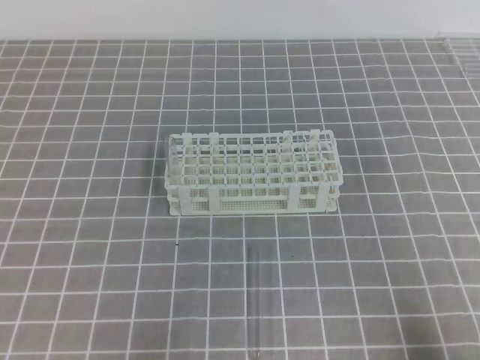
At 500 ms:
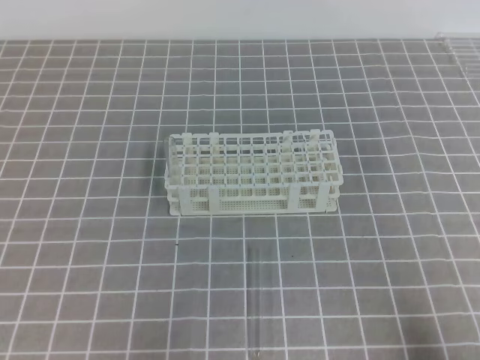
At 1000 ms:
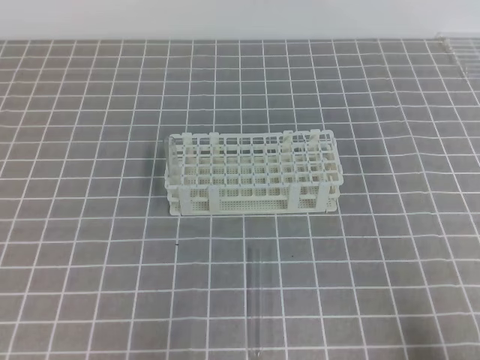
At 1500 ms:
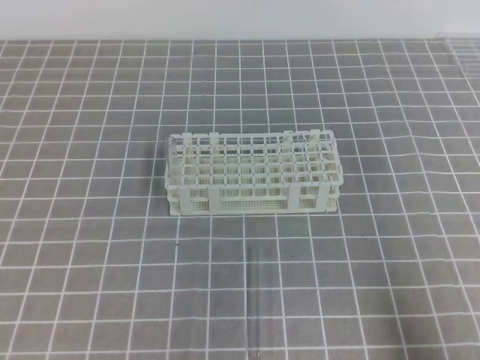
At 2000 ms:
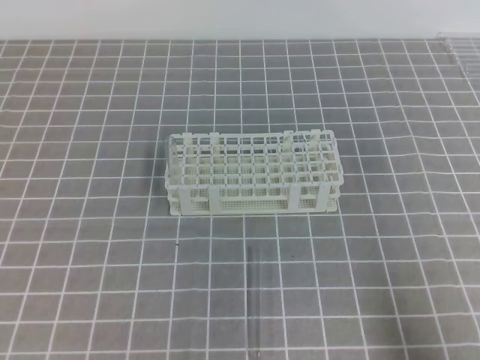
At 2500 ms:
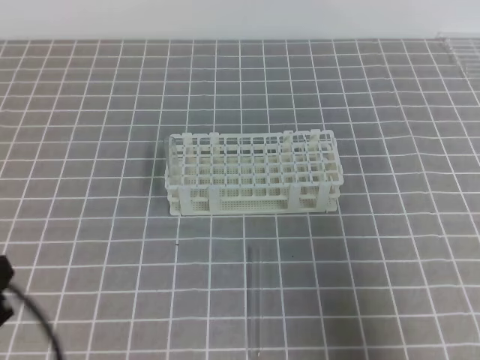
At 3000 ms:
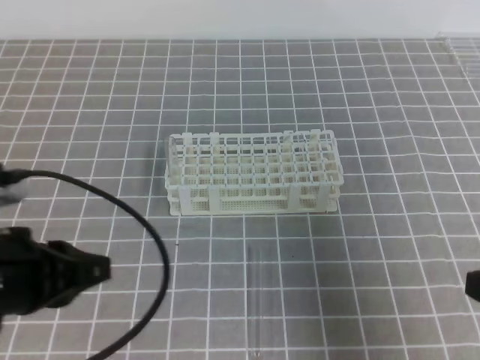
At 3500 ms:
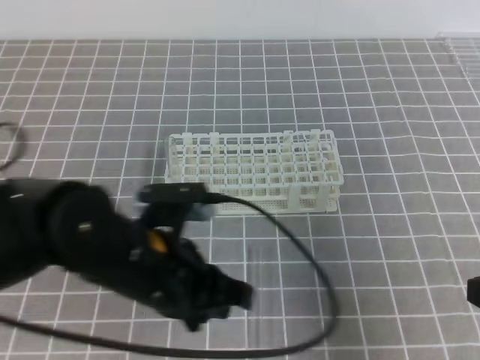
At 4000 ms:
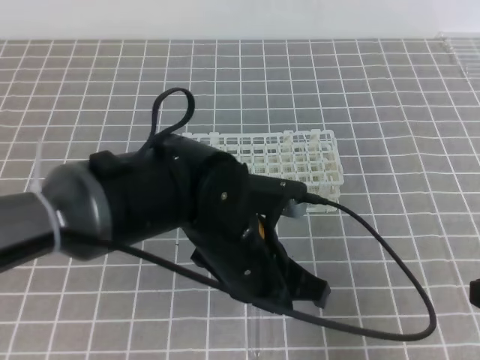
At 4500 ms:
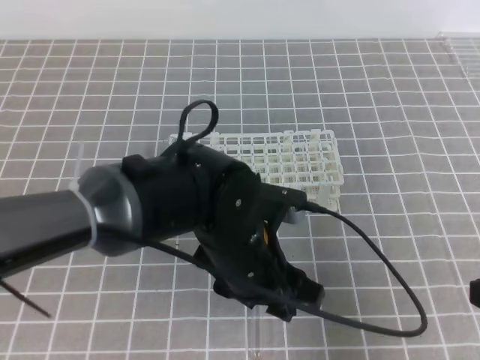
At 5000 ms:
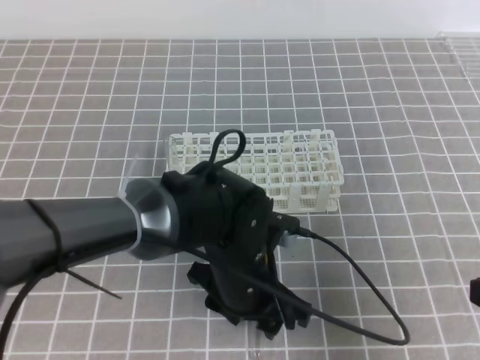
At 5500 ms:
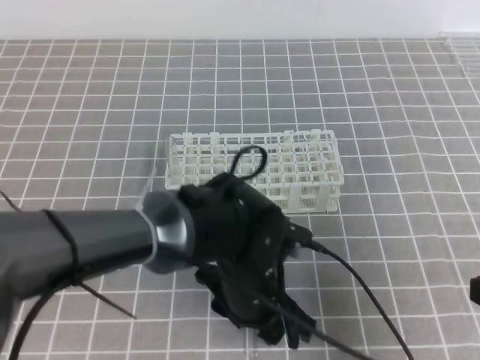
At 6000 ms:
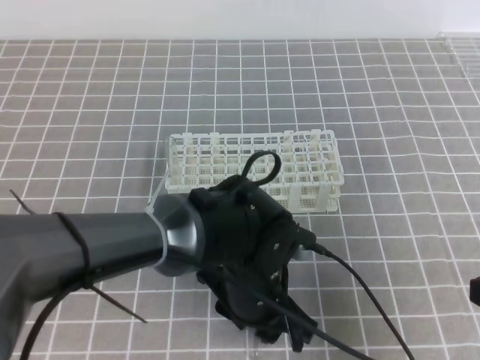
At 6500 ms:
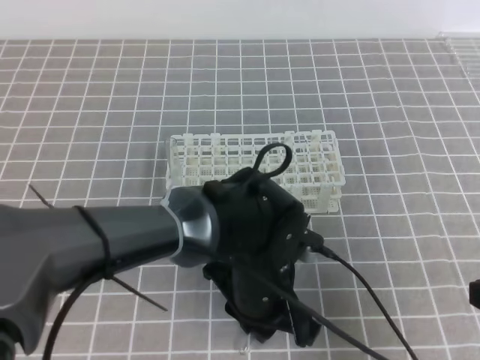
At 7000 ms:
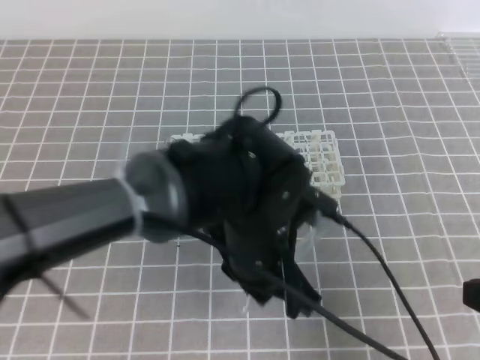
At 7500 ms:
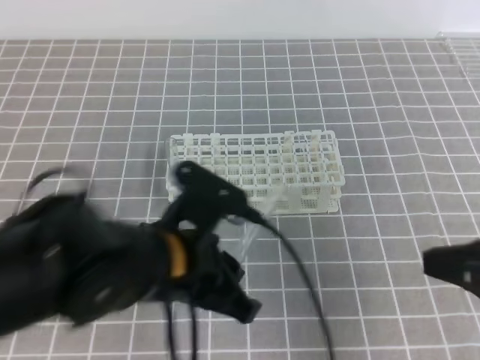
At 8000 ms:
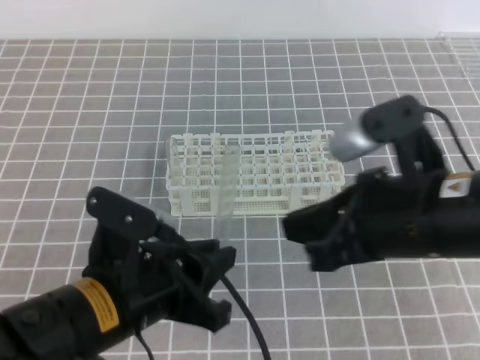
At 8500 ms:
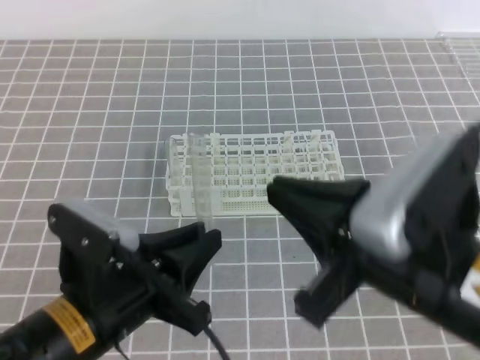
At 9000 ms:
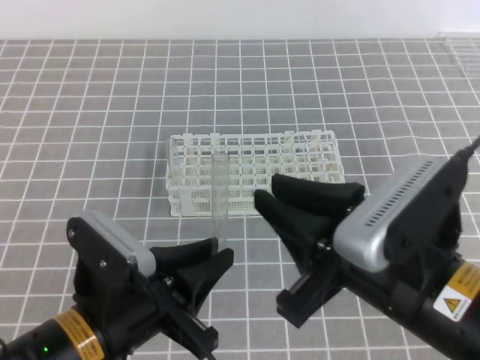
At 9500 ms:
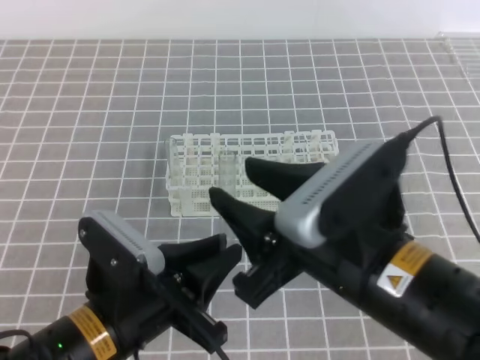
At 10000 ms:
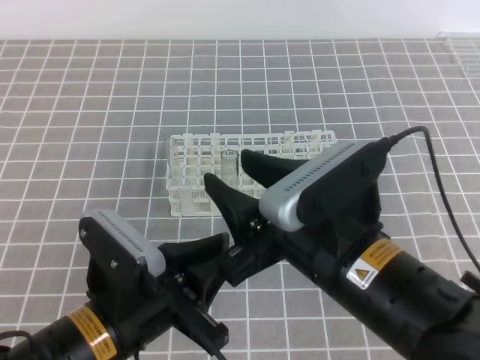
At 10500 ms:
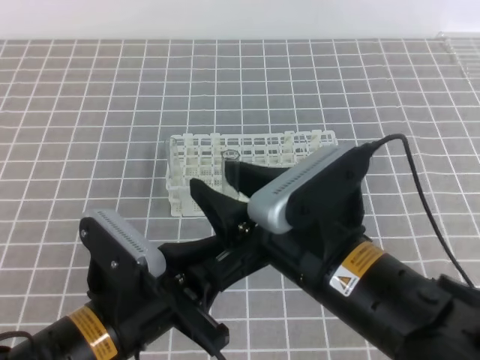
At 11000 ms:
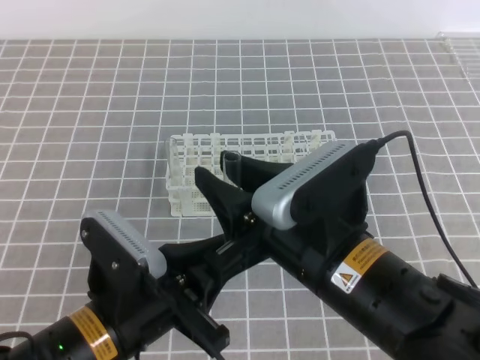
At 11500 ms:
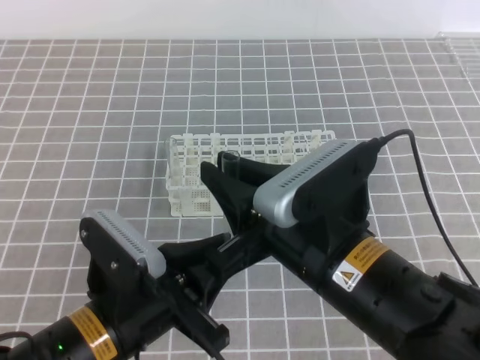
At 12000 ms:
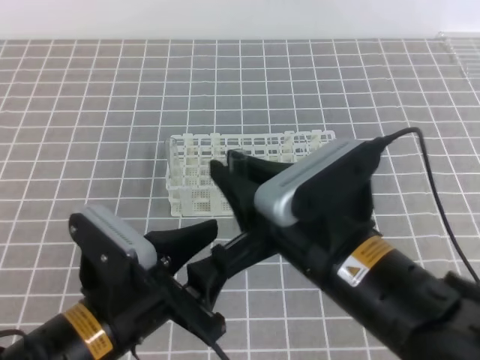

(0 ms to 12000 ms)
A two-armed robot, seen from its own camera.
2000 ms - 4000 ms: The left gripper moves to the right and forward, approximately 30 cm; the right gripper shifts roughly 10 cm forward and upward.
4000 ms - 6000 ms: The left gripper shifts roughly 10 cm downward, and opens up.
6000 ms - 8000 ms: The right gripper heads to the left and forward, covering some 15 cm, while the left gripper shifts roughly 15 cm to the left, upward and backward, and closes.
8000 ms - 10000 ms: The right gripper shifts approximately 10 cm to the left, and opens.
10000 ms - 12000 ms: The left gripper opens. The right gripper closes its fingers.

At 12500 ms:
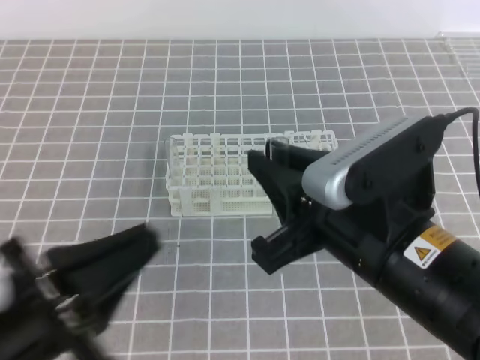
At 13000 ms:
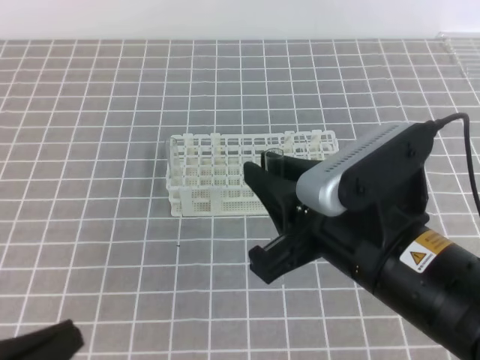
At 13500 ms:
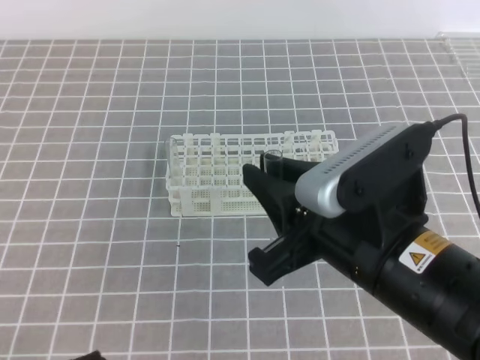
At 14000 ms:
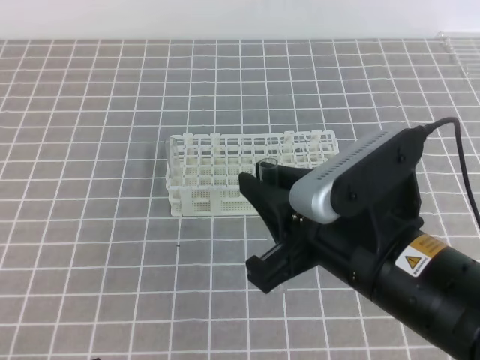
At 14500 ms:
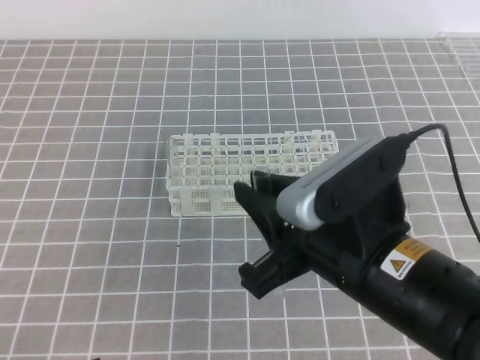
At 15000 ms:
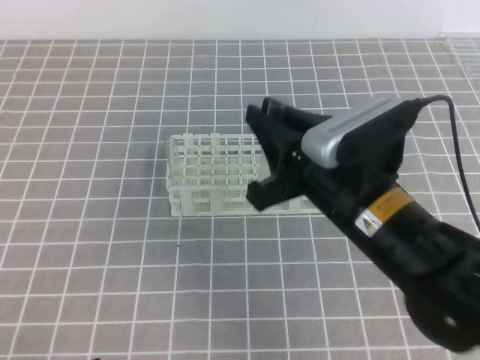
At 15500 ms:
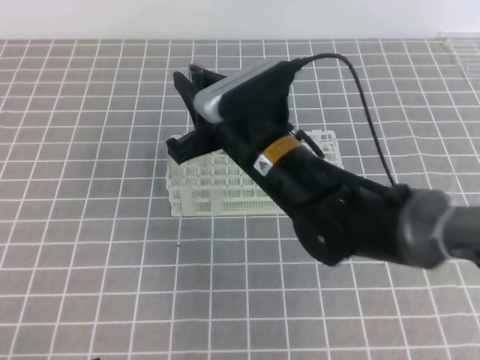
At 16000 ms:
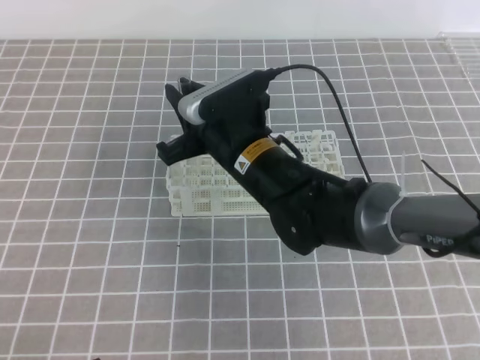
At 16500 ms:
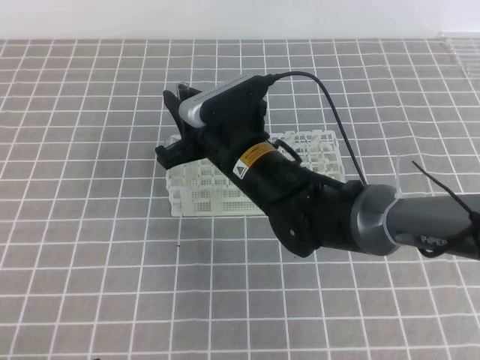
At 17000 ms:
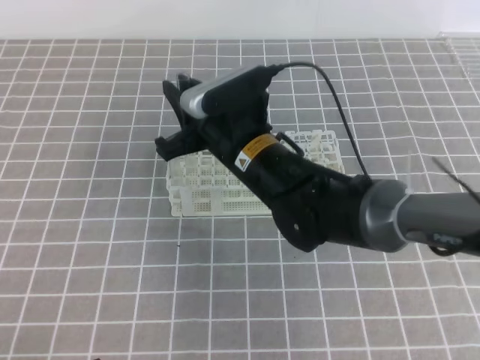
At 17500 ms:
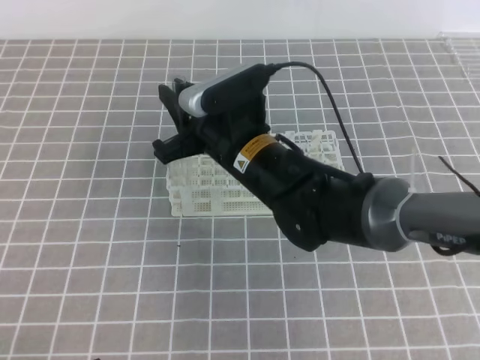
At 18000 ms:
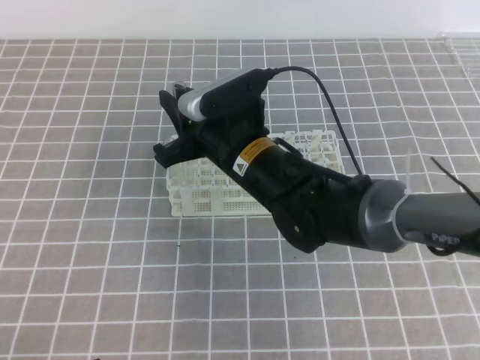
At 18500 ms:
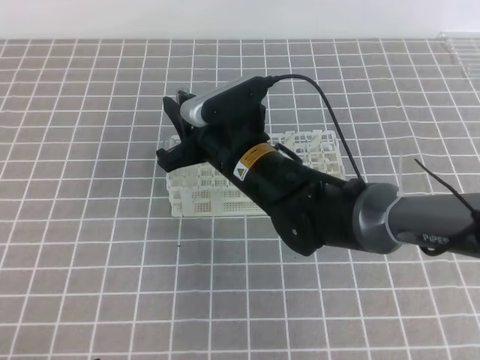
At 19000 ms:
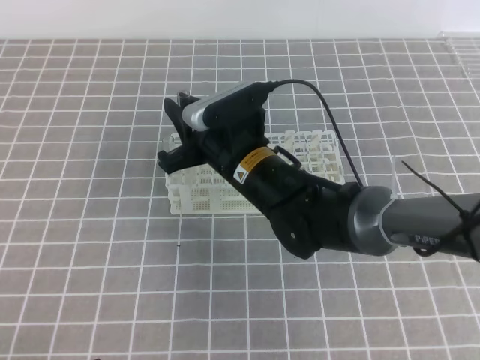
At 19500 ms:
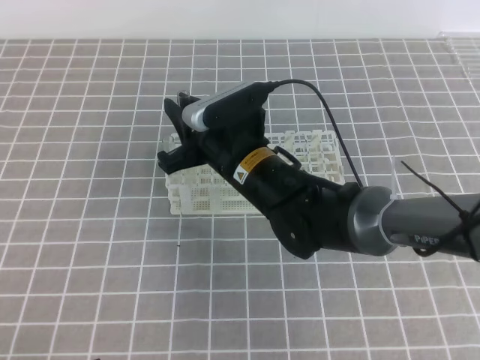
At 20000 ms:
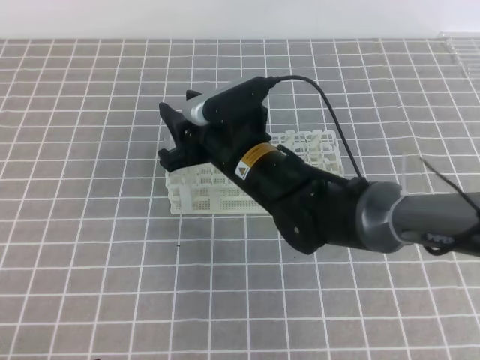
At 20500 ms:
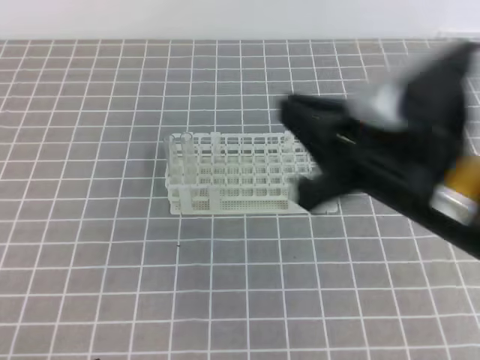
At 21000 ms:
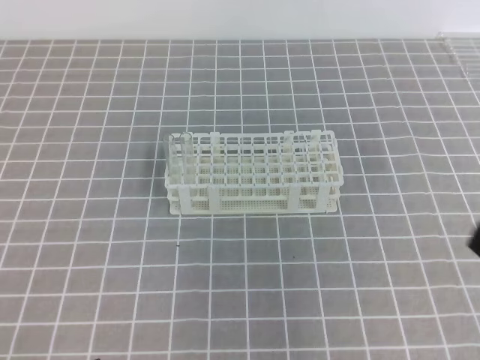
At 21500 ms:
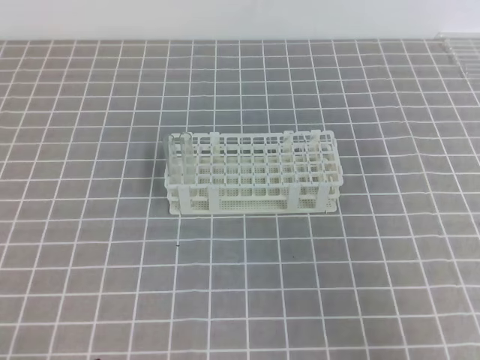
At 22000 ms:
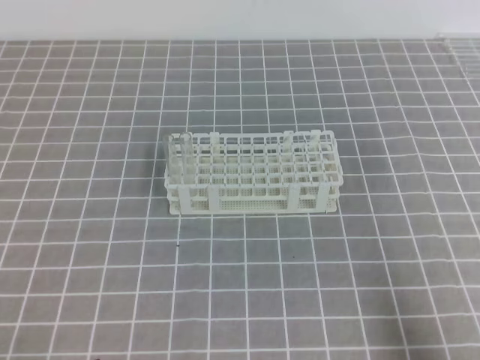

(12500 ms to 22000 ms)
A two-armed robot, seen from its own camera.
12500 ms - 14500 ms: The left gripper is displaced downward, to the left and backward by approximately 10 cm.
14500 ms - 16500 ms: The right gripper moves forward and to the left, roughly 20 cm.
16500 ms - 18000 ms: The grippers stay close to where they were, moving slightly.
18000 ms - 20000 ms: The right gripper opens its fingers.
20000 ms - 22000 ms: The right gripper travels to the right and backward by about 40 cm, and closes.

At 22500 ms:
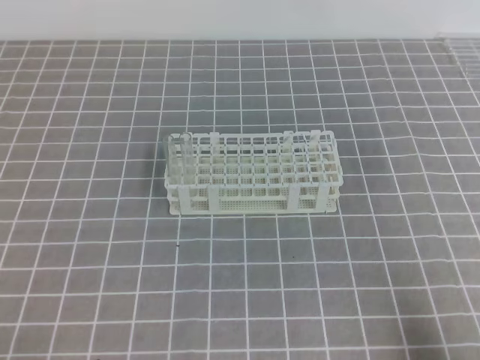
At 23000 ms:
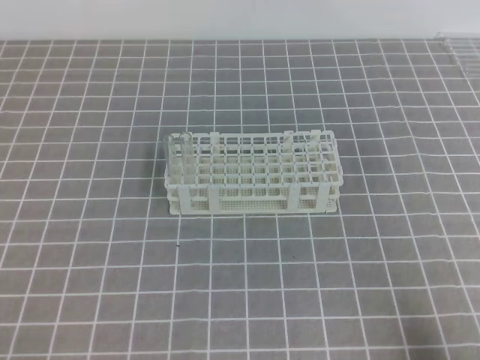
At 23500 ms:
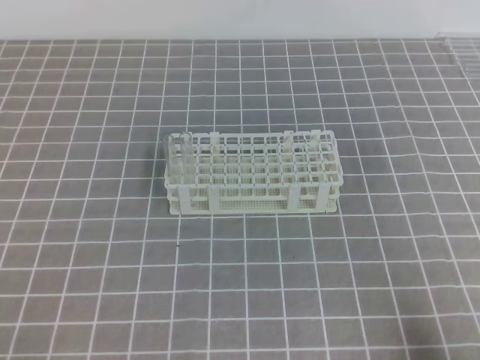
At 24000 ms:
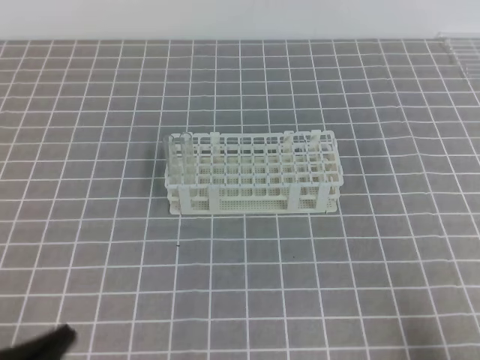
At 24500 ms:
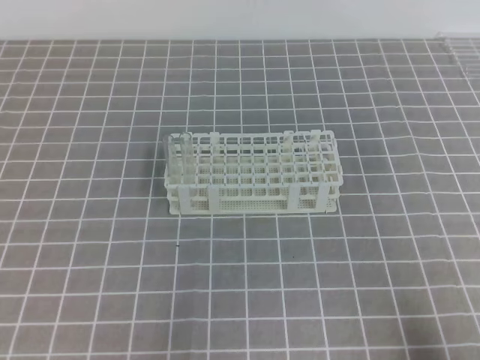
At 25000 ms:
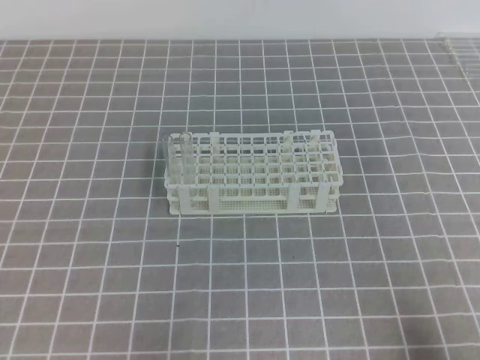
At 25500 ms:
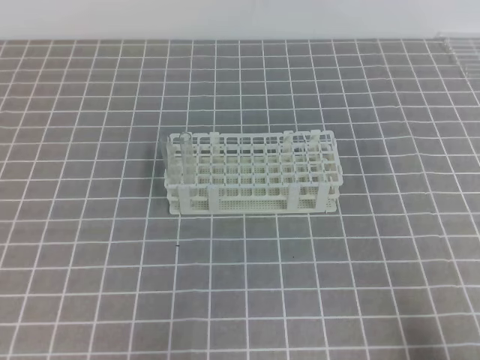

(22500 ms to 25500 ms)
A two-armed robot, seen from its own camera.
22500 ms - 24000 ms: The grippers make only small movements.
